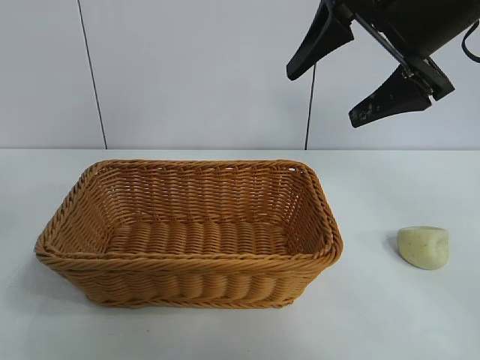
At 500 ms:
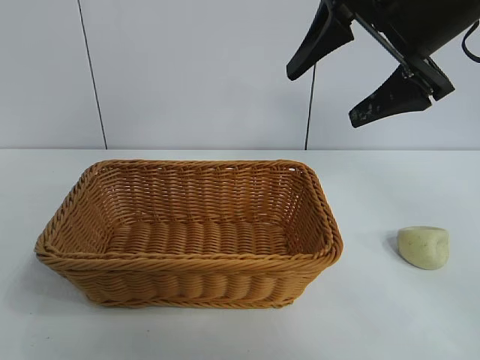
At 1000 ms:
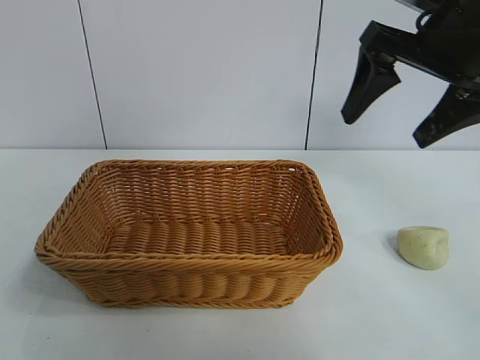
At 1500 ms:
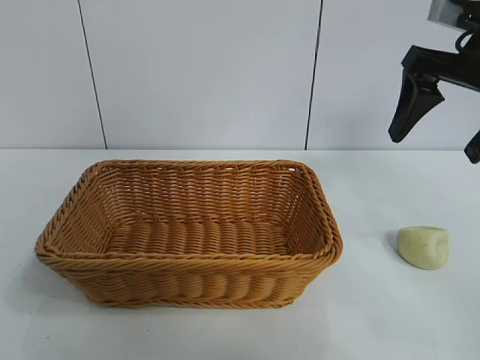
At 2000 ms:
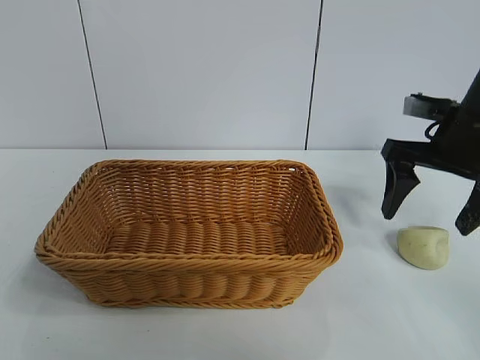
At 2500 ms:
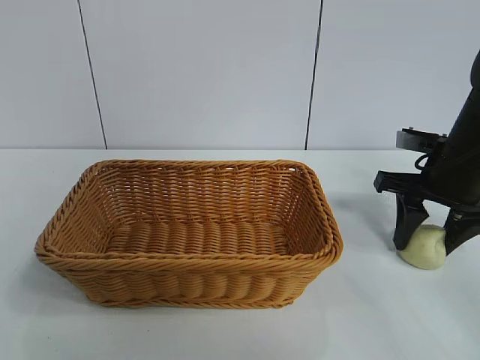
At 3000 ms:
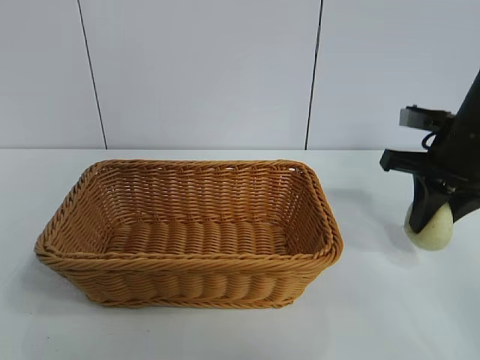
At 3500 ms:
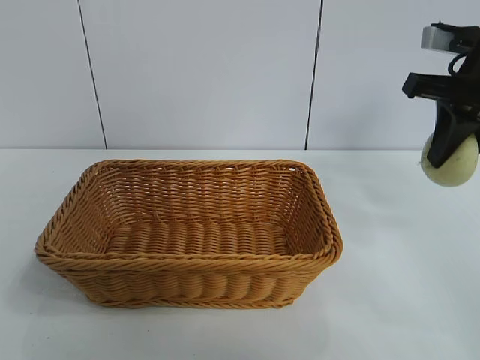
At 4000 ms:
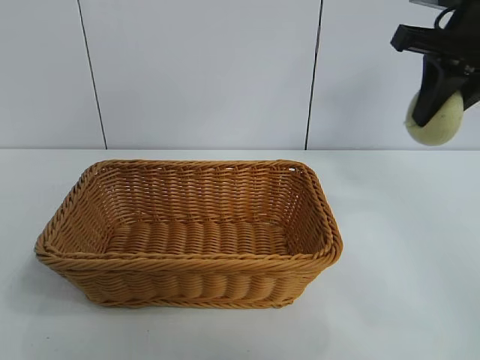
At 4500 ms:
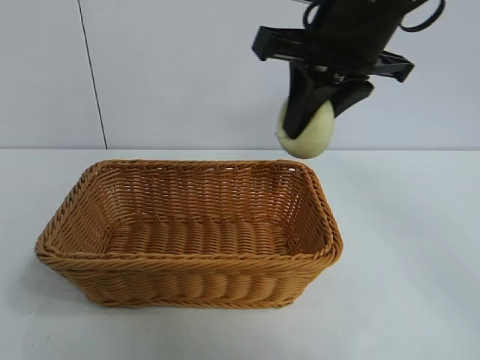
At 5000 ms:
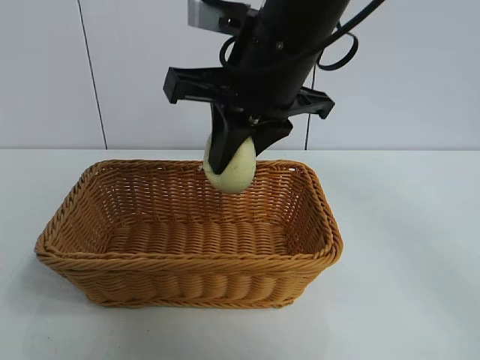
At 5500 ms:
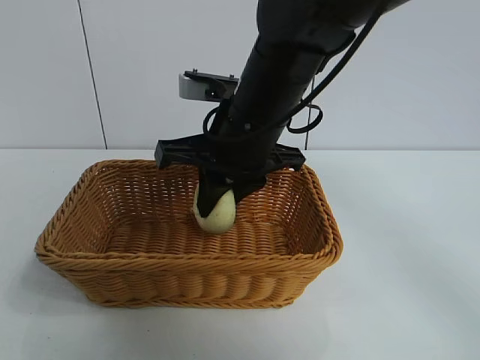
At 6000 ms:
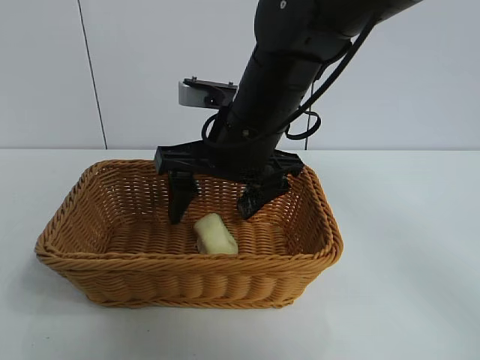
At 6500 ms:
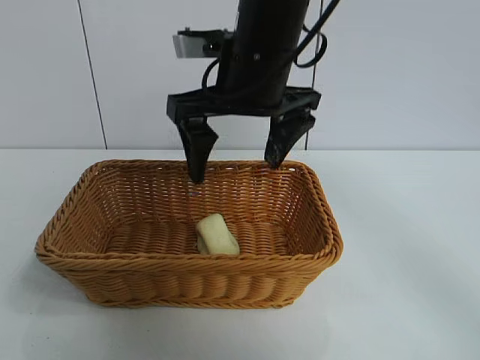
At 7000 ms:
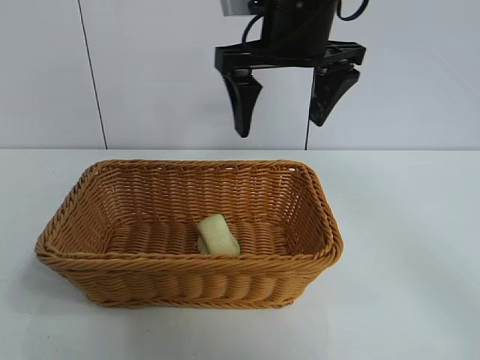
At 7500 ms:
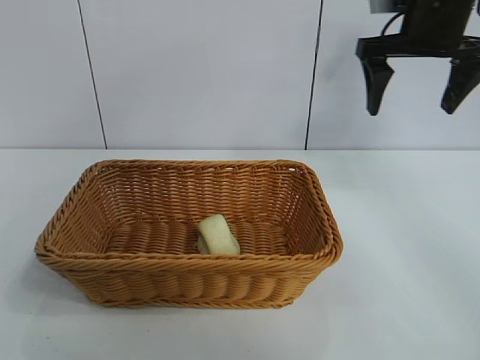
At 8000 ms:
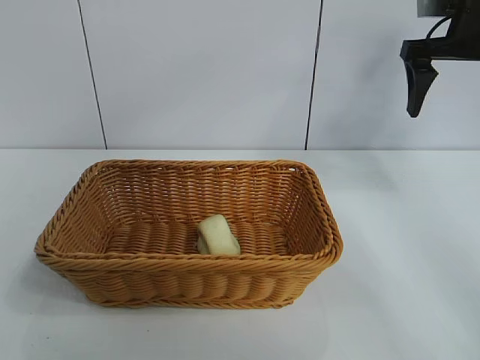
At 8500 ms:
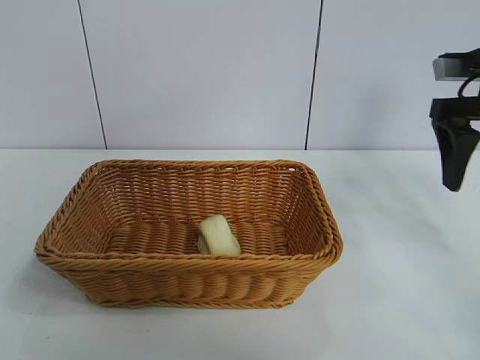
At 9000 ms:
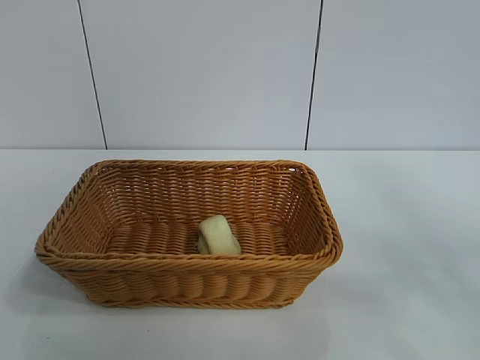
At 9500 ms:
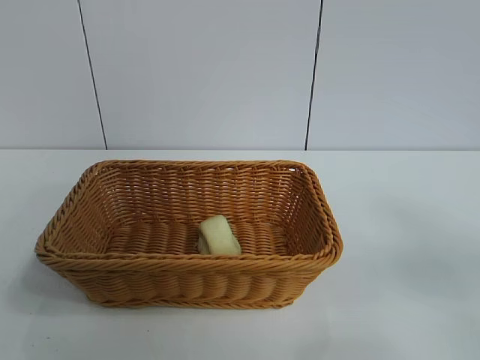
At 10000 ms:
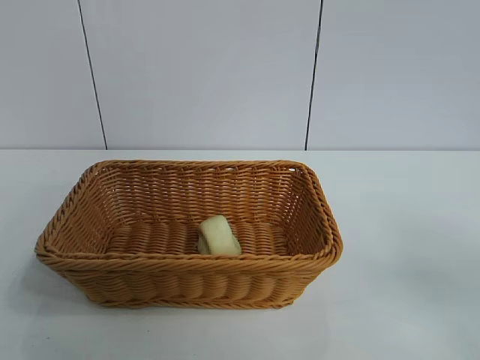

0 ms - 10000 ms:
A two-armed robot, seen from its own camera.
Task of the whole recording: pick up the egg yolk pastry and put it into the basket.
Step, 0 ms - 2500 ms: Grasp egg yolk pastry with right gripper.
Step, 3000 ms - 5500 ms: Place the egg yolk pastry in the basket with right gripper.
